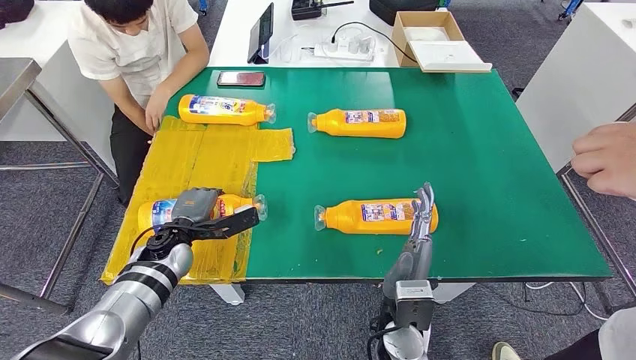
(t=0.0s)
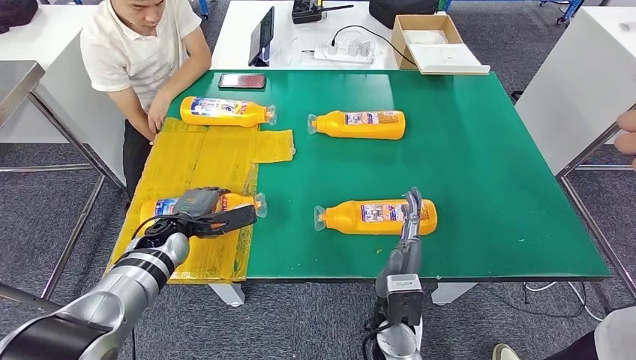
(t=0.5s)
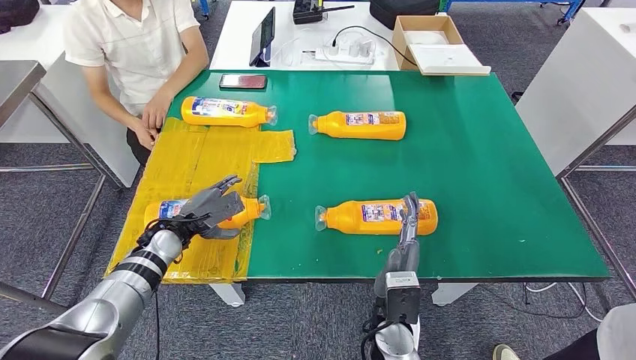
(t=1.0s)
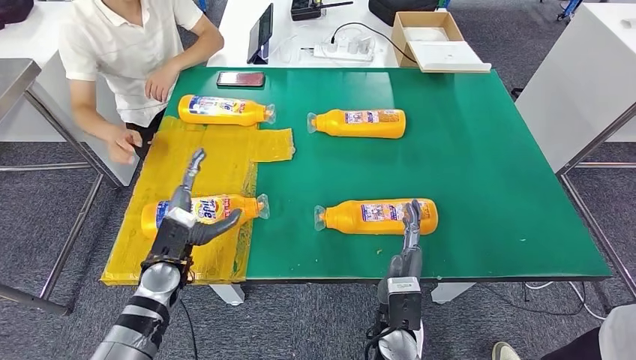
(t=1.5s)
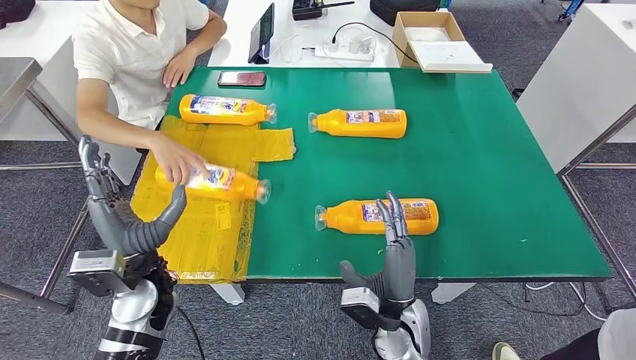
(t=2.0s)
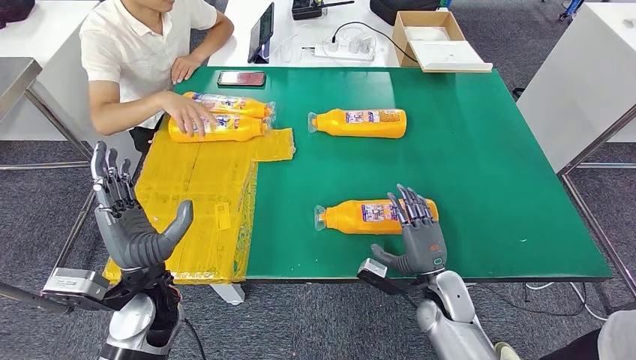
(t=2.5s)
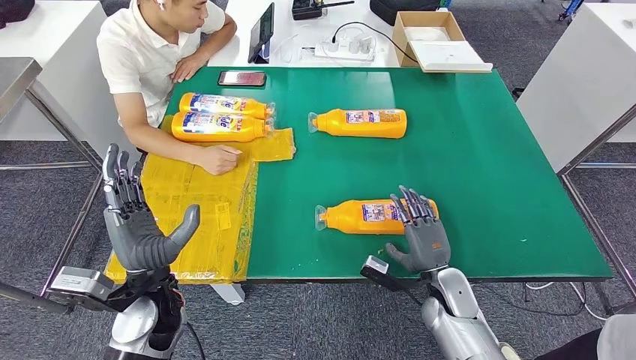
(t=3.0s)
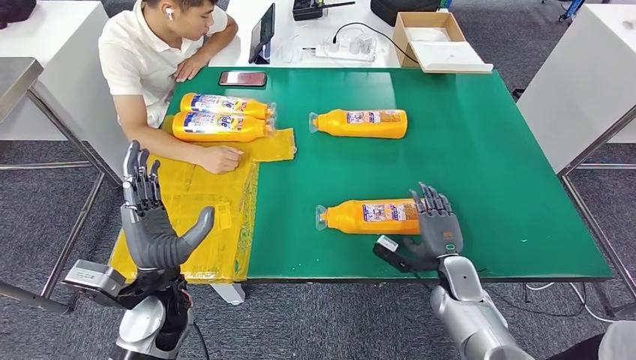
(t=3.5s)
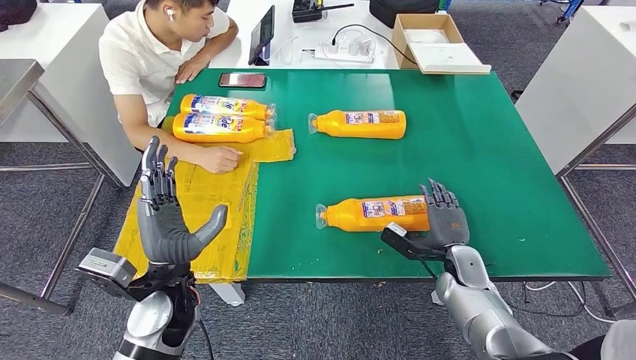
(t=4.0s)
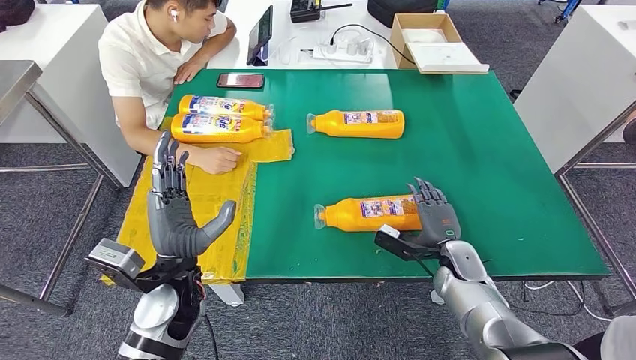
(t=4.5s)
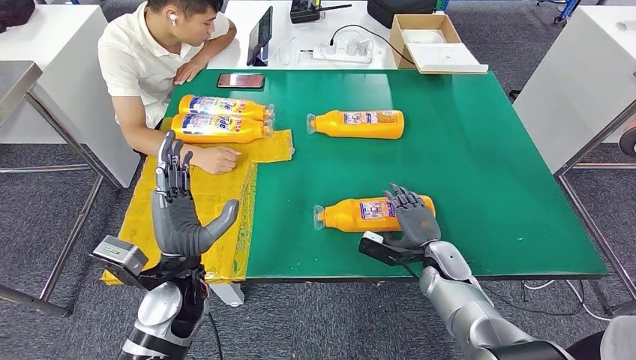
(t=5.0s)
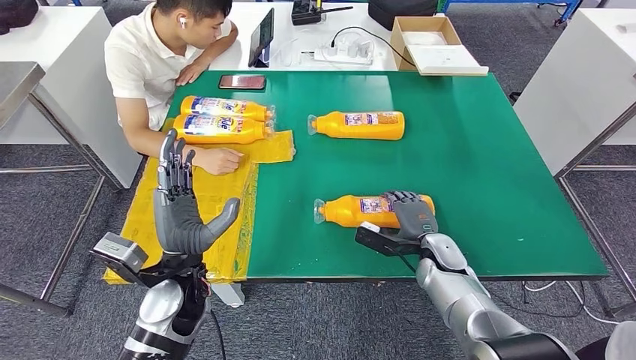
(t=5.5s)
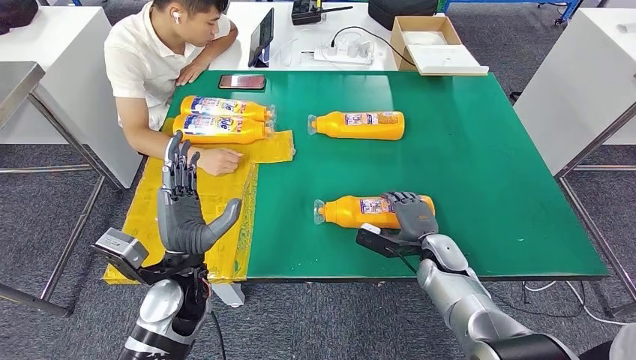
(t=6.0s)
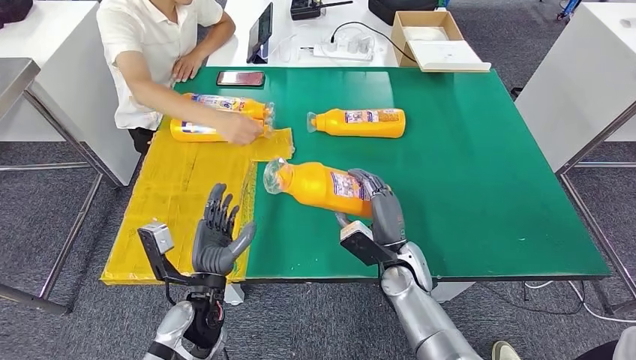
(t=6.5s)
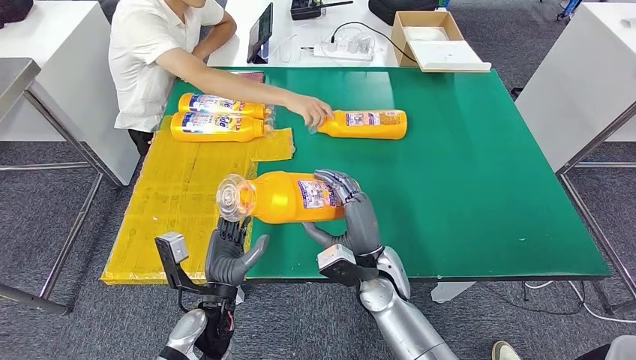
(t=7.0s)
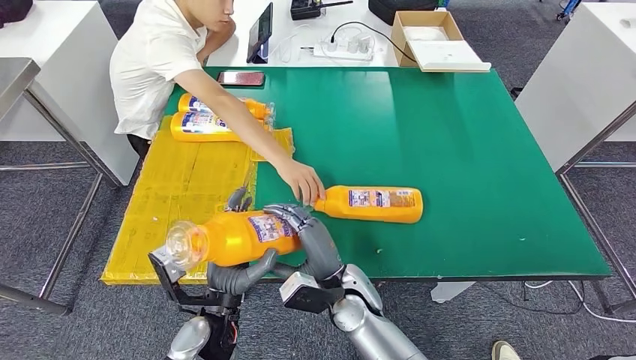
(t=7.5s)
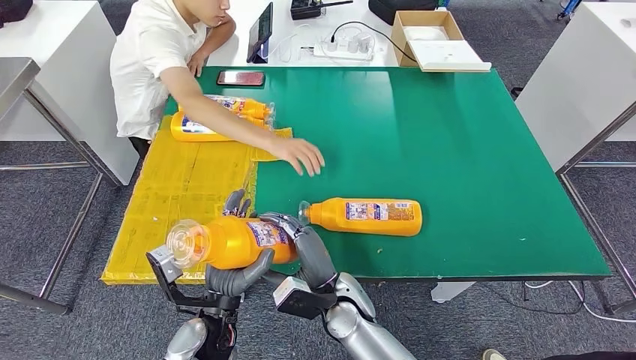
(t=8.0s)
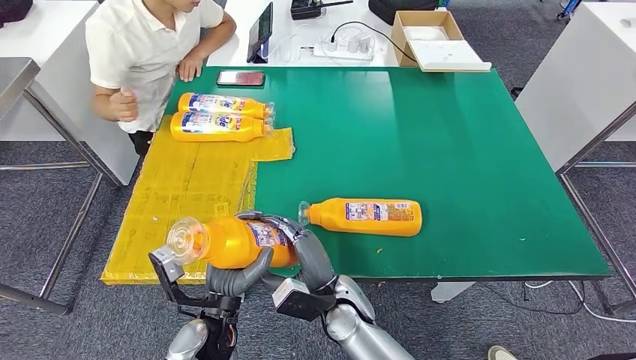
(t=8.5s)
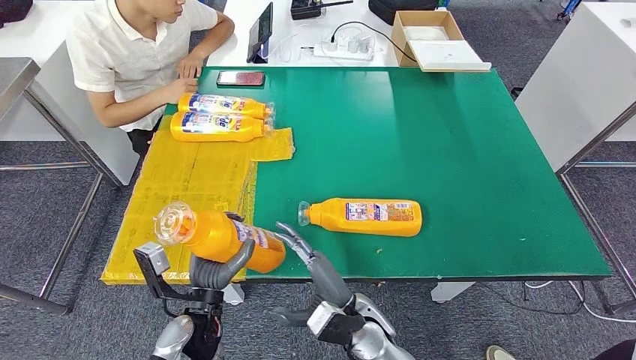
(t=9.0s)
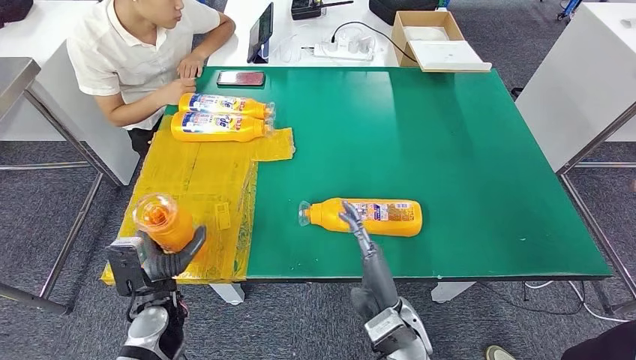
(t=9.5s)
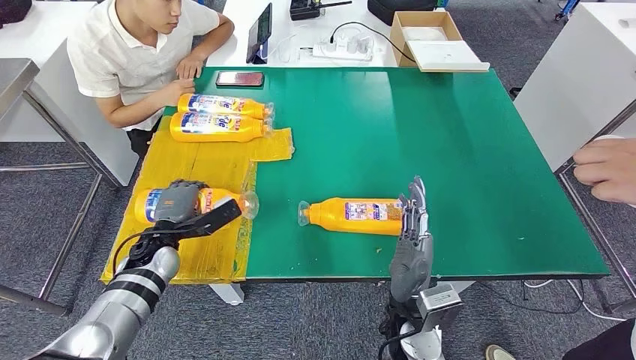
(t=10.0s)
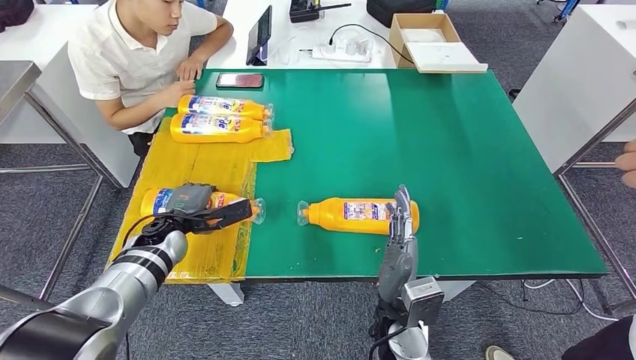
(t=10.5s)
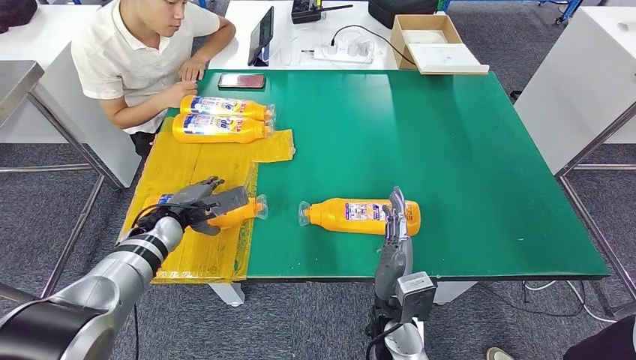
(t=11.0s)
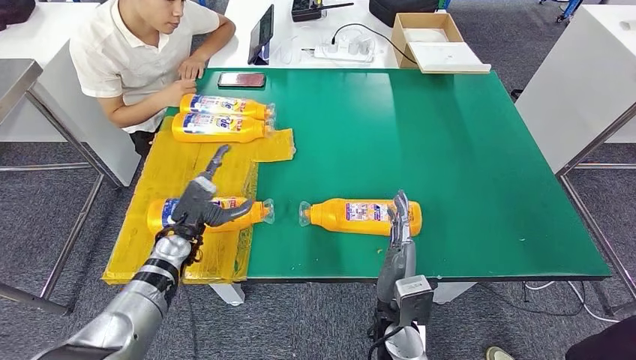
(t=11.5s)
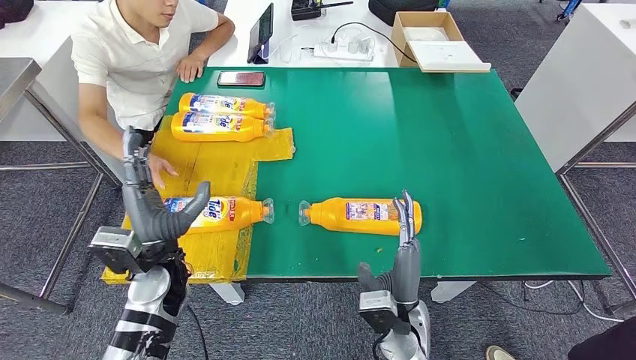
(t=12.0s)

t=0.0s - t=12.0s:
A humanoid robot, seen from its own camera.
Step, t=0.0s - t=2.5s: Flip the bottle to face forward.
Step, t=3.0s - t=8.0s: Pick up the bottle from the table.
t=4.0s - t=6.0s: The hands move only a little.
t=10.0s - t=12.0s: The left hand shifts some 10 cm backward and upward.

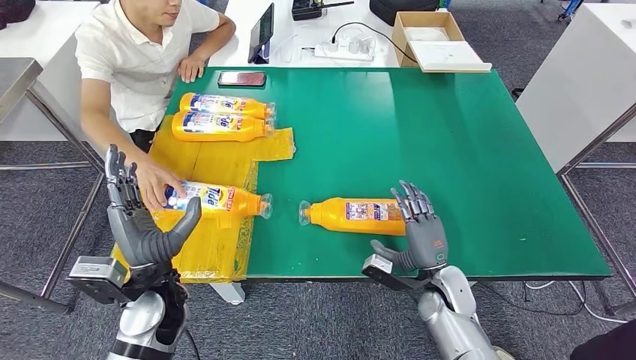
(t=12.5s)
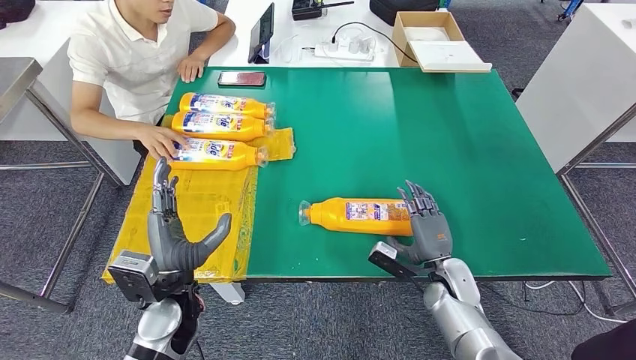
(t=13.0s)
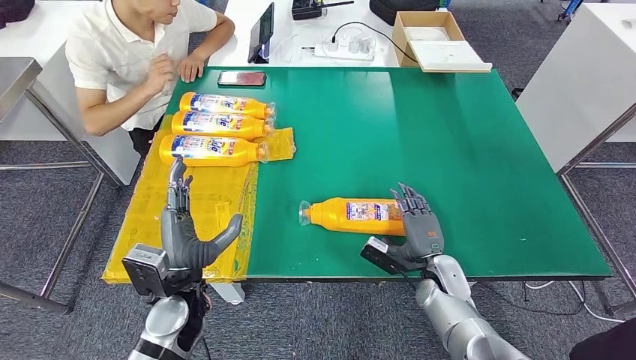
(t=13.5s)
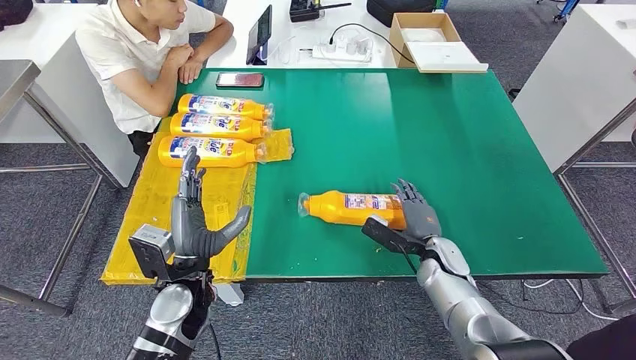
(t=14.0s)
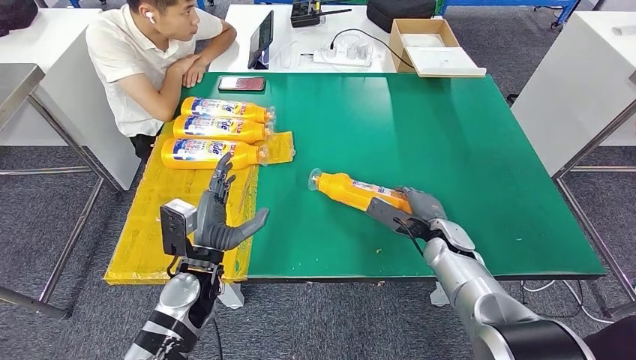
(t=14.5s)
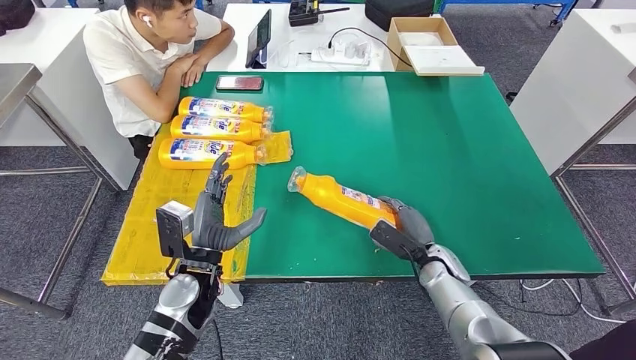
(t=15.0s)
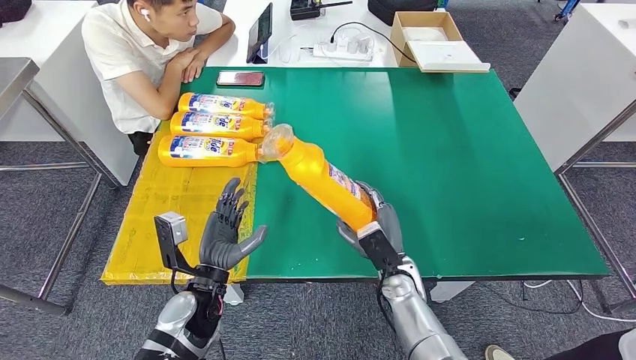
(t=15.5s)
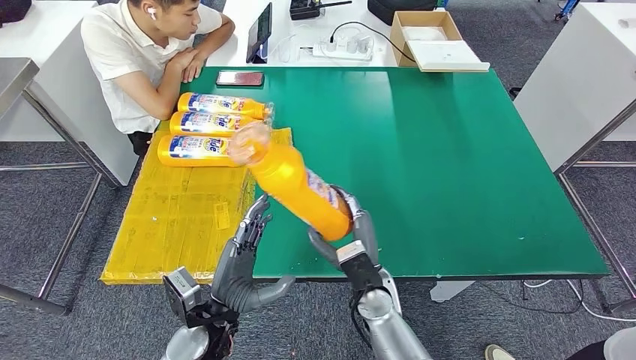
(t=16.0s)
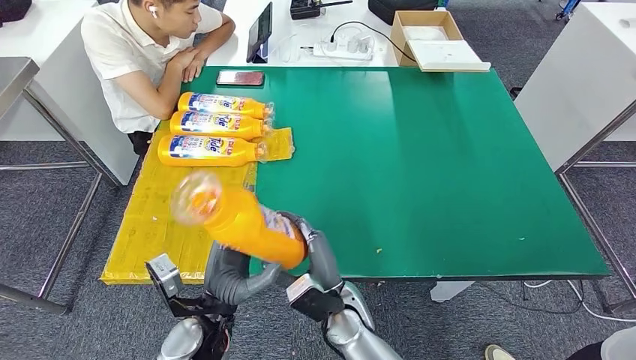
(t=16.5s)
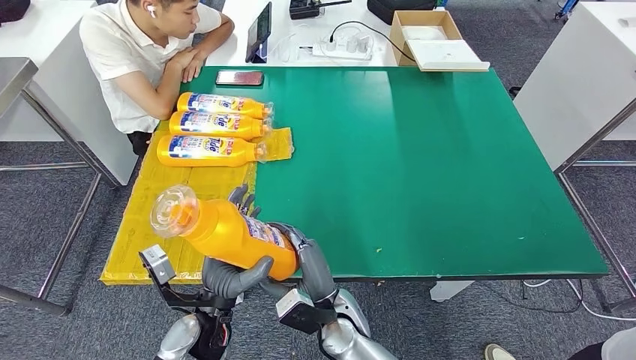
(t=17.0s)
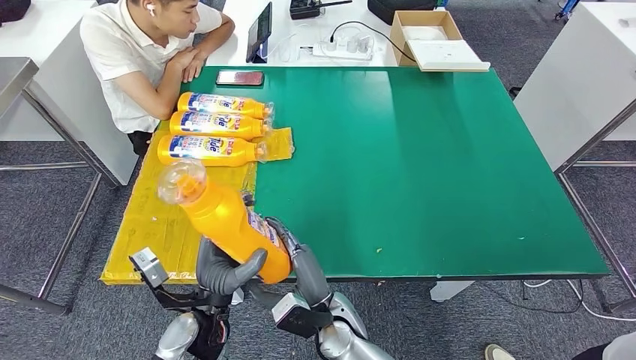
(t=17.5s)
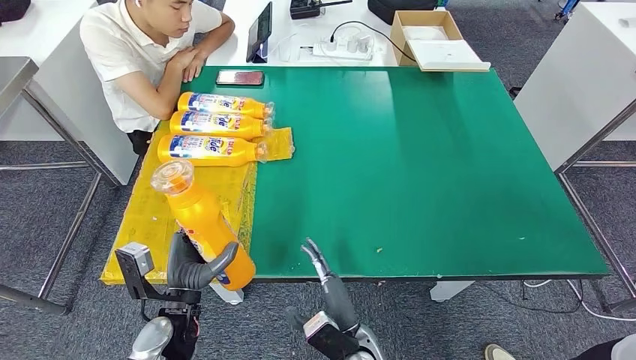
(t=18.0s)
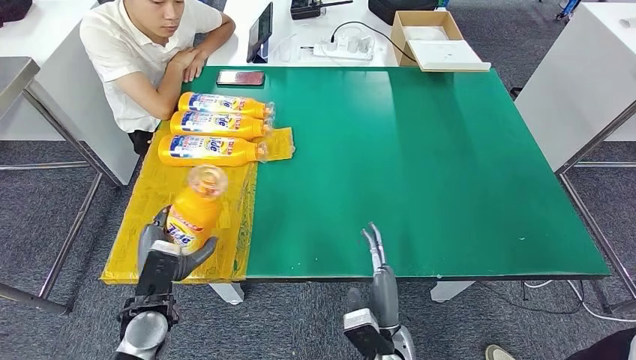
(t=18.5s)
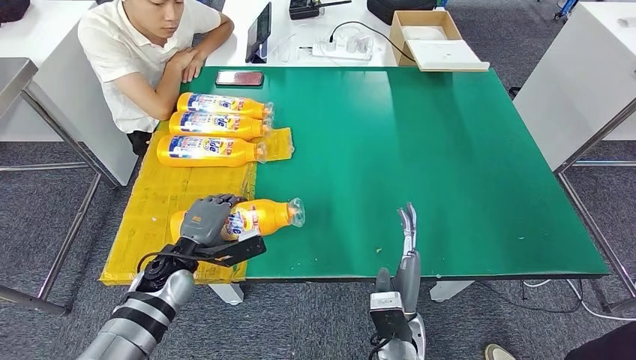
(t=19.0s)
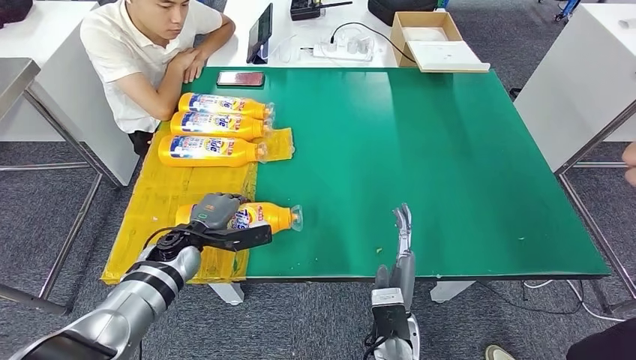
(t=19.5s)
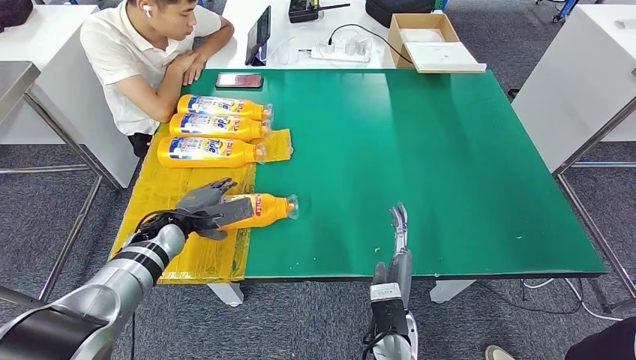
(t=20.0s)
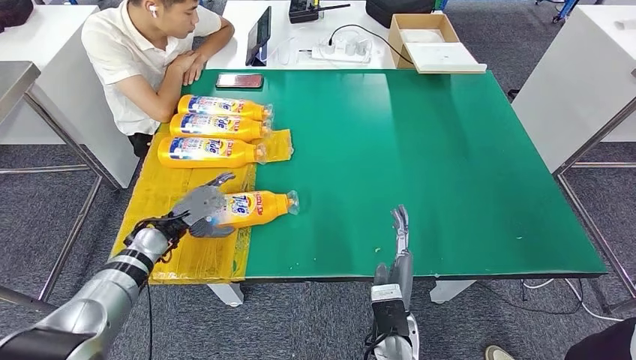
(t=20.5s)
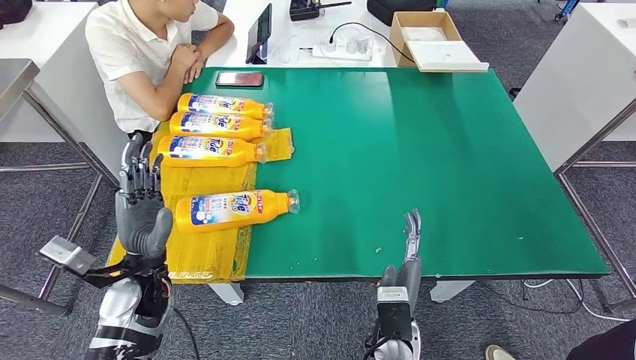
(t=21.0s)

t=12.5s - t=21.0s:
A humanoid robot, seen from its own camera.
Step, t=13.0s - t=16.0s: Pick up the bottle from the table.
Step, t=16.5s - t=21.0s: Flip the bottle to face forward.
t=16.5s - t=19.0s: The left hand moves forward and to the left, about 15 cm. Meanwhile the right hand goes approximately 10 cm to the right.
t=19.0s - t=21.0s: The left hand moves upward, about 5 cm.
